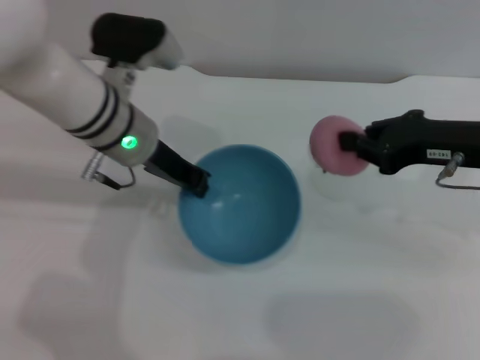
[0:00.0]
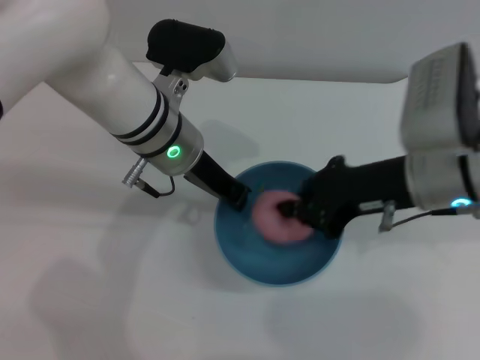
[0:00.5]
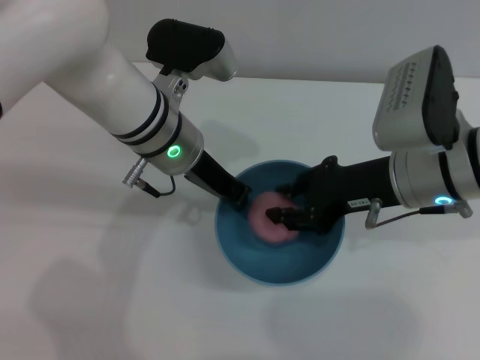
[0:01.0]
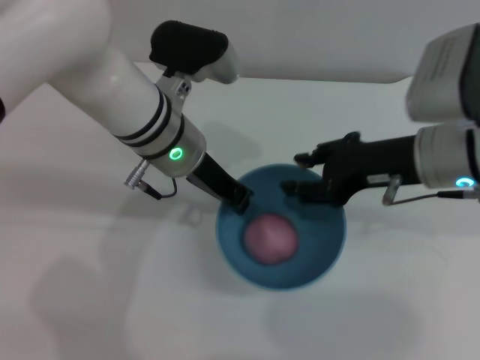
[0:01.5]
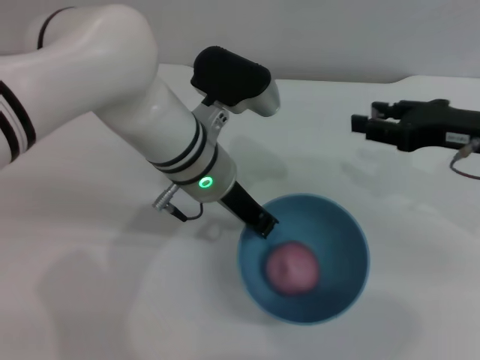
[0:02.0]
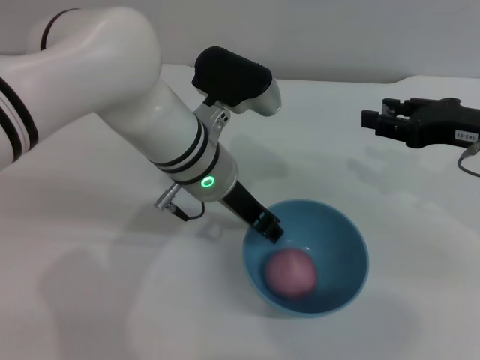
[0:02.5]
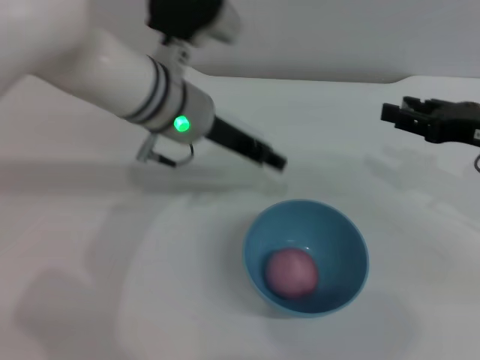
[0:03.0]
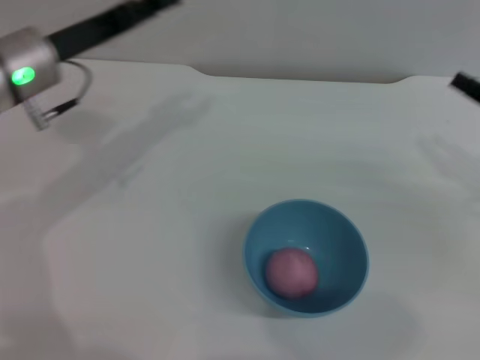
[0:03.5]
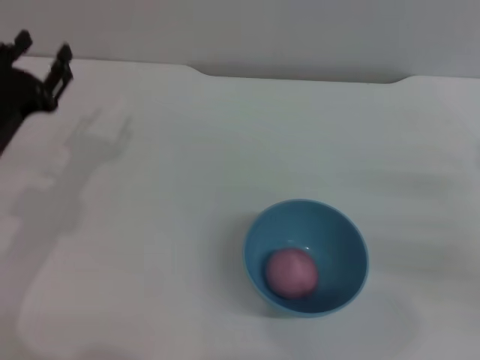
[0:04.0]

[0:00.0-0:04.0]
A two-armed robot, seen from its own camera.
Task of the whole recording: put the peach into the blue bowl and pour it out repeatedly.
Step, 0:00.0 to 0:01.5: Place the peach into the bowl.
Step, 0:02.0 to 0:02.5: Place the bowl on the table.
0:00.0 to 0:02.0: The left gripper travels to the right by approximately 10 cm; the right gripper moves about 10 cm to the left and comes back, and opens.
0:02.0 to 0:04.0: The right gripper shifts roughly 15 cm to the right, downward and backward. The left gripper heads to the left, covering approximately 20 cm, and opens up.
